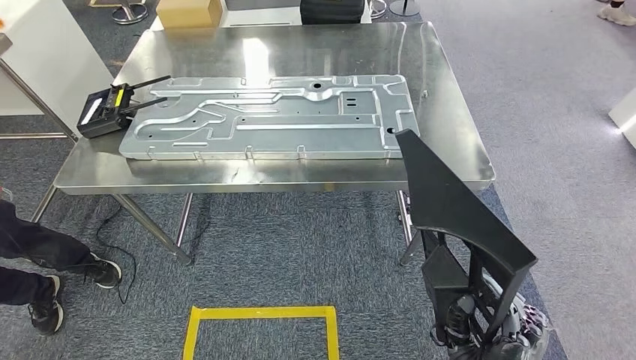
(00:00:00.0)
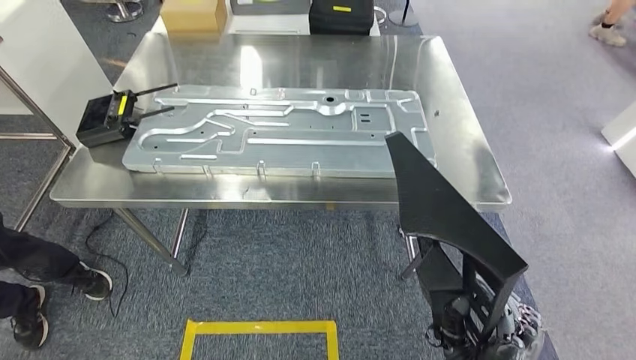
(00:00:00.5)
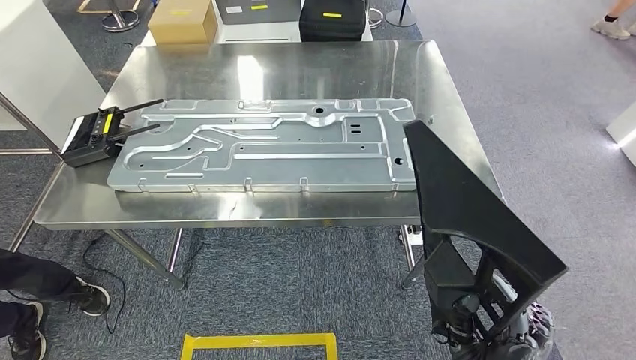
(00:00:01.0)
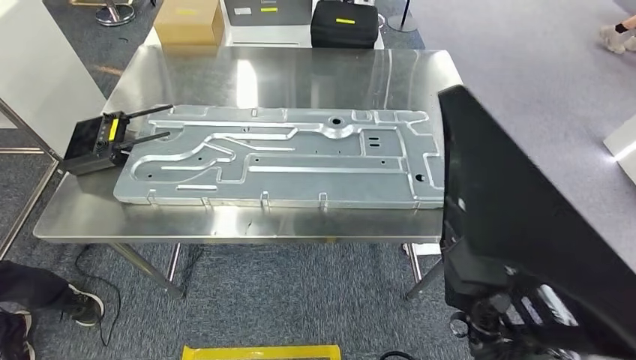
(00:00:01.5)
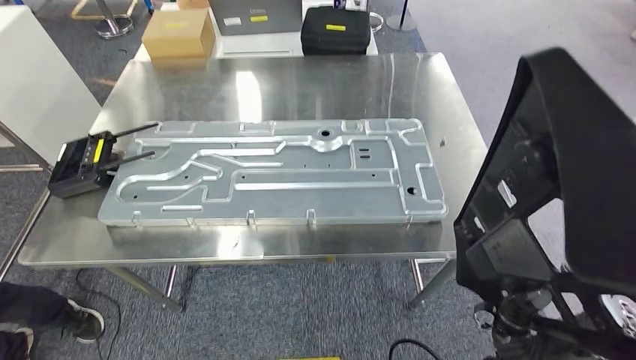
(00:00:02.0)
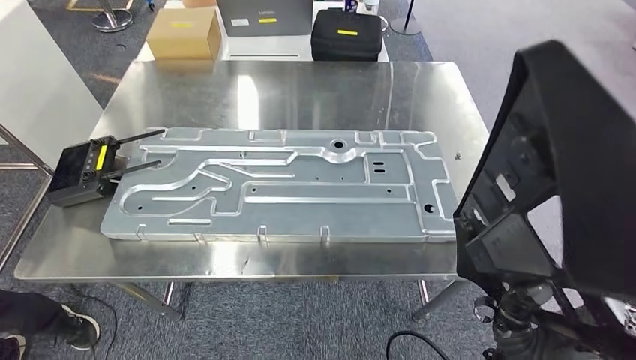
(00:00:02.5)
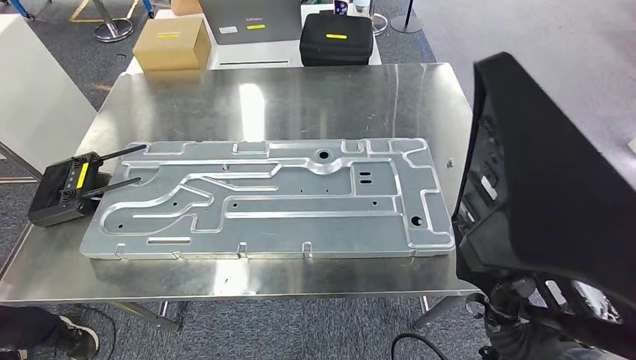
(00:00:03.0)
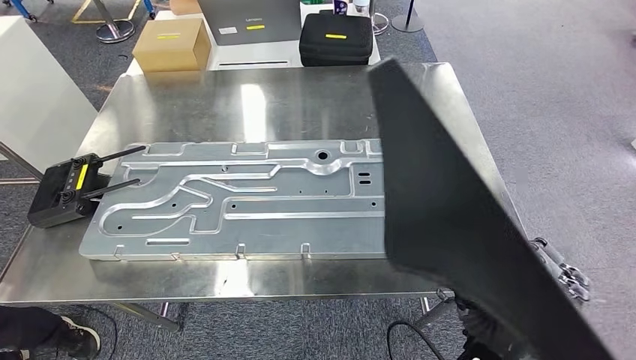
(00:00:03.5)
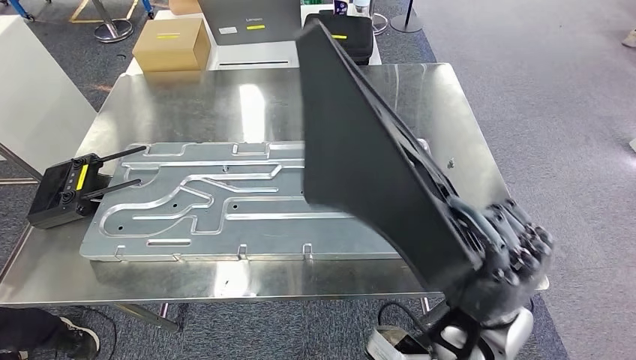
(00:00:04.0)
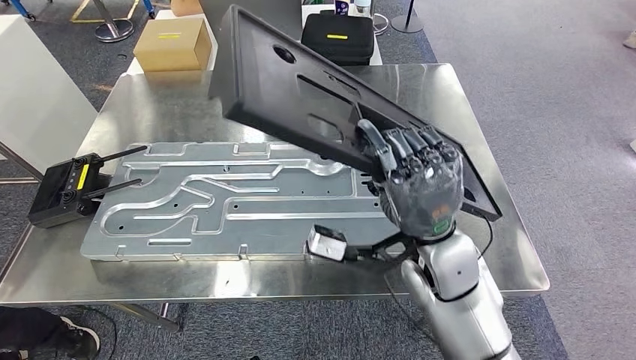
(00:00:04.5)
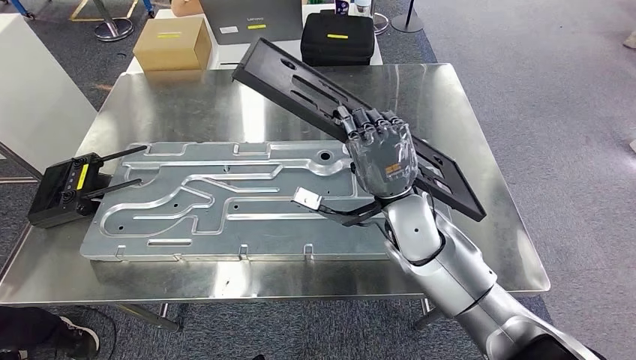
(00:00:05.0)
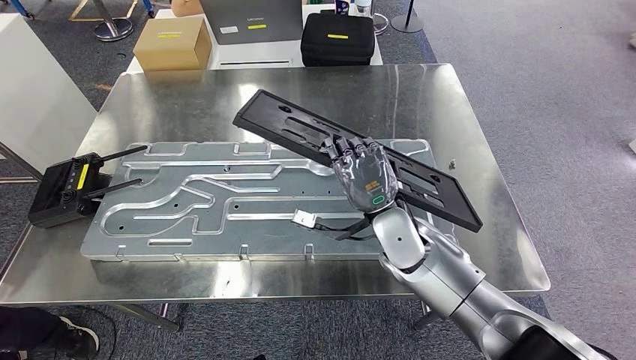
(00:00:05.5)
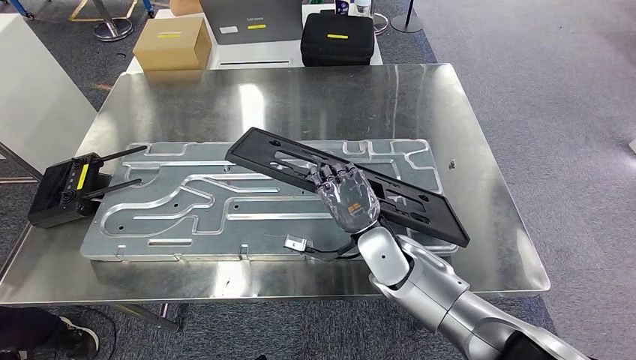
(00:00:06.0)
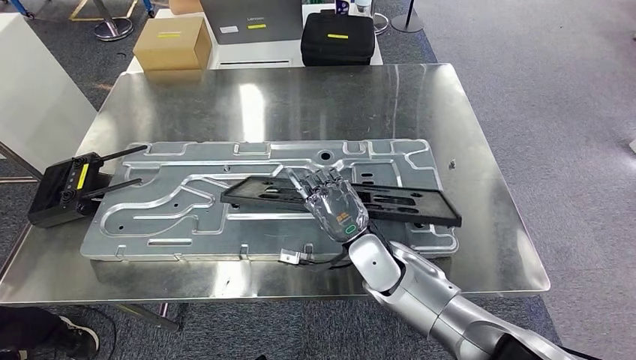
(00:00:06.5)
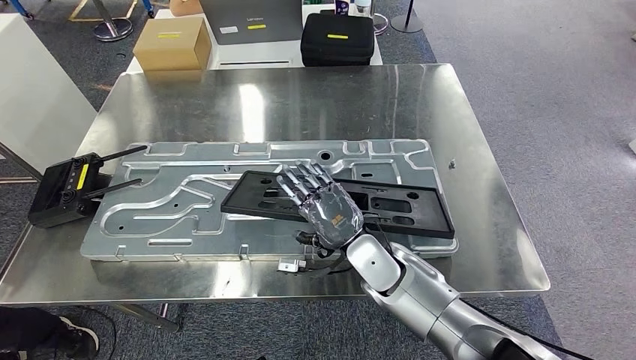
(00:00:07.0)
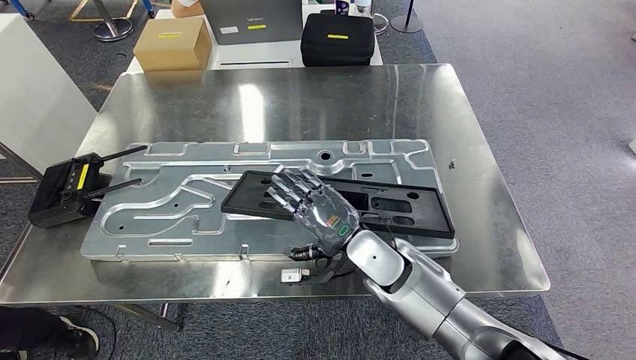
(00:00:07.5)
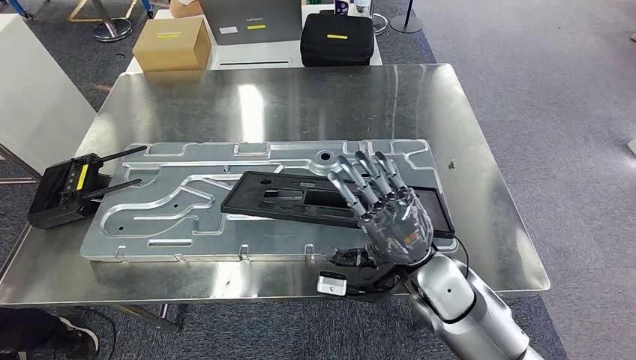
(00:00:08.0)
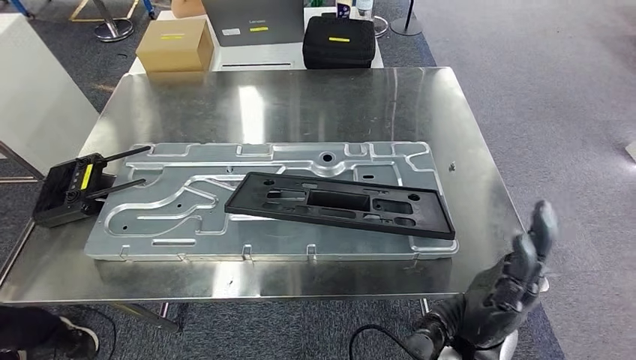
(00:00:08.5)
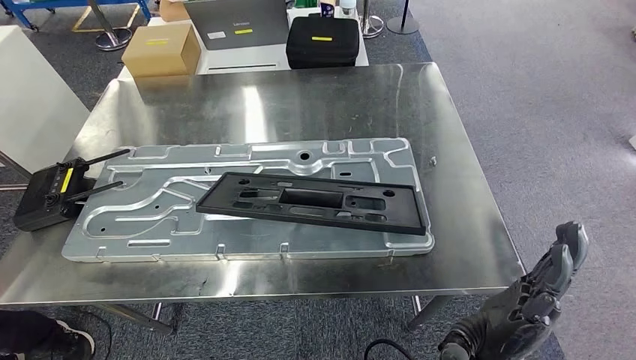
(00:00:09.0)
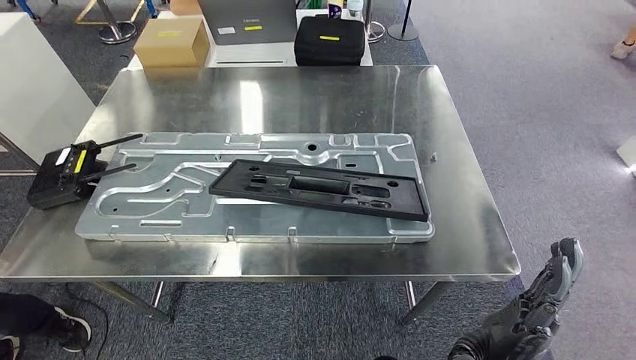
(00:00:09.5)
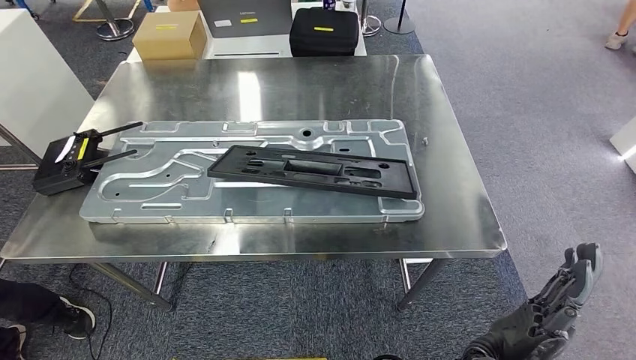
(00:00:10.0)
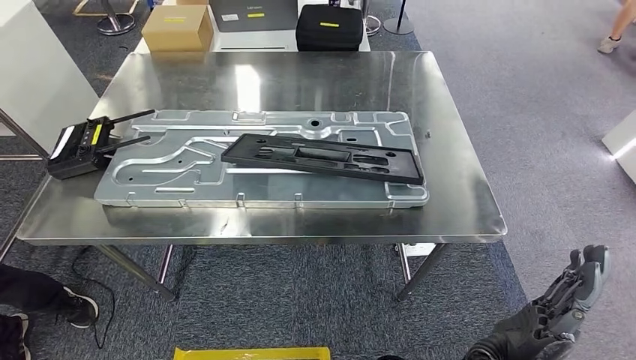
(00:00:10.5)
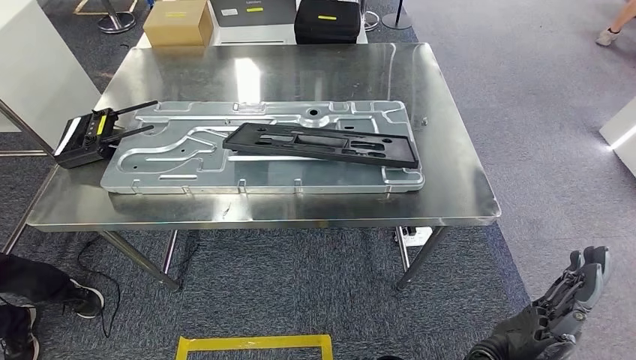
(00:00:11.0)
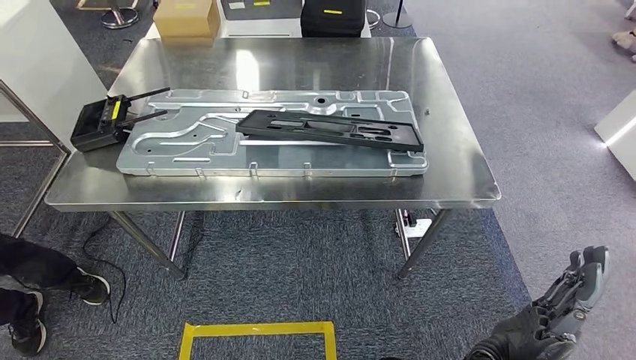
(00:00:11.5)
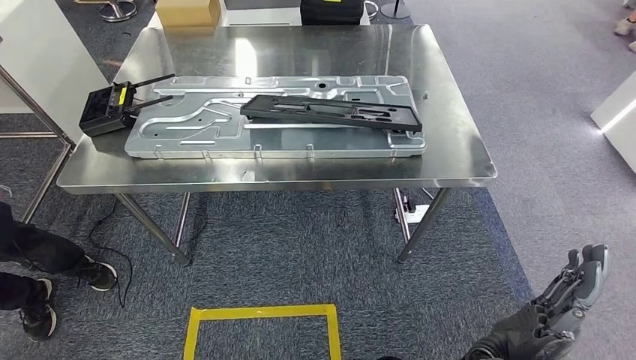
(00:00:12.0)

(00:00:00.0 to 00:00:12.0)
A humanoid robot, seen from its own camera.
Step, 00:00:02.5 - 00:00:09.5: Insert the large parts into the corresponding slots on the workbench.
00:00:06.0 - 00:00:08.0: The right hand travels to the right and backward by about 10 cm.

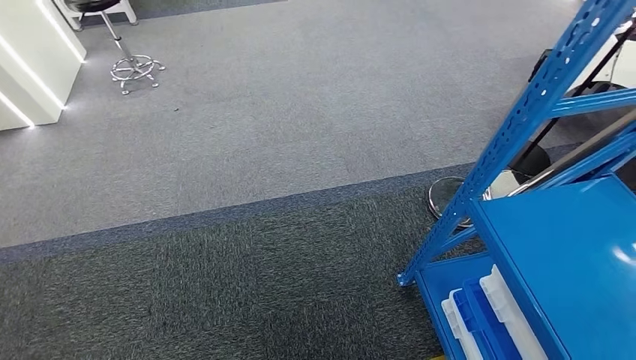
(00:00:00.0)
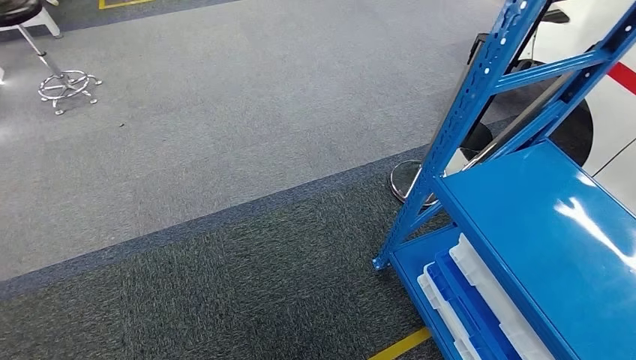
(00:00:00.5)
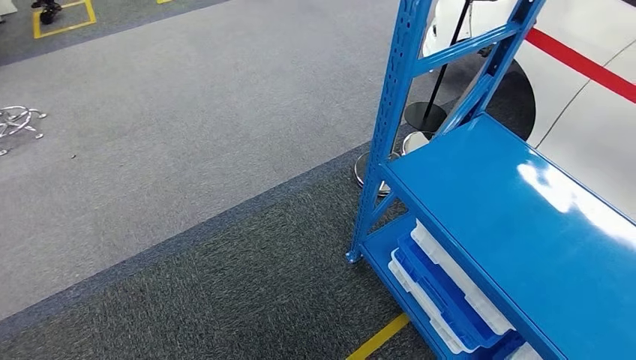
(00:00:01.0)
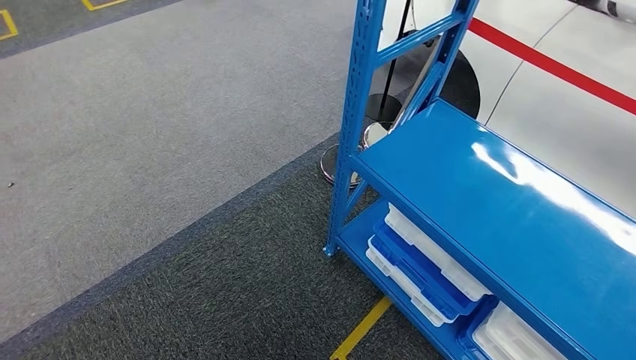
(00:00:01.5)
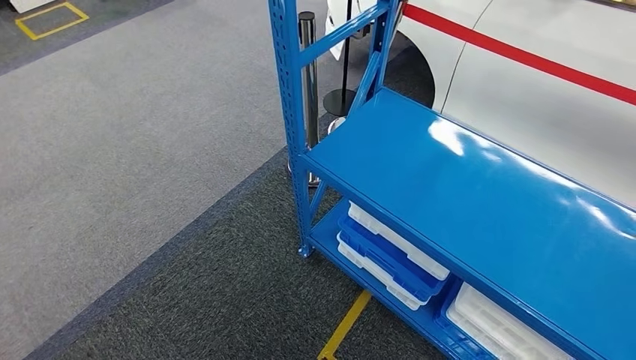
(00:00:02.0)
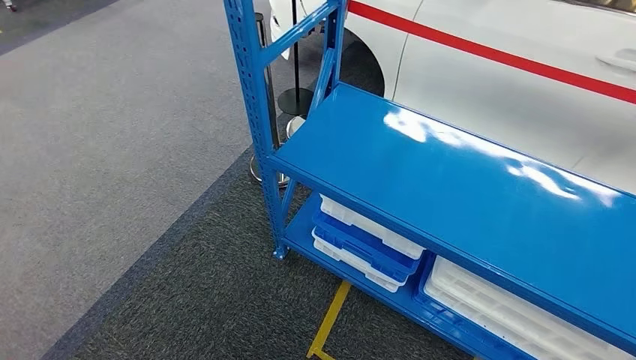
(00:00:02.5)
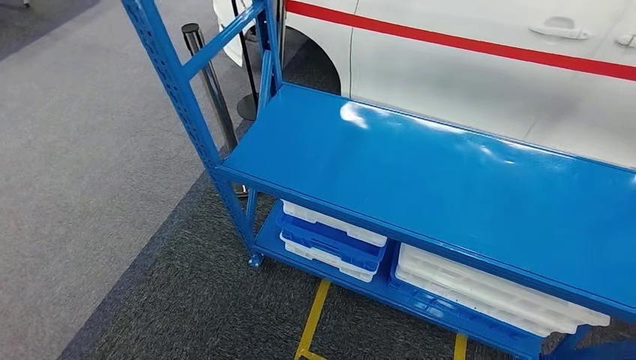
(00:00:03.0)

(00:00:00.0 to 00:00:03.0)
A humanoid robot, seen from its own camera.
Step, 00:00:00.0 - 00:00:03.0: Return to the initial position at the shelf.

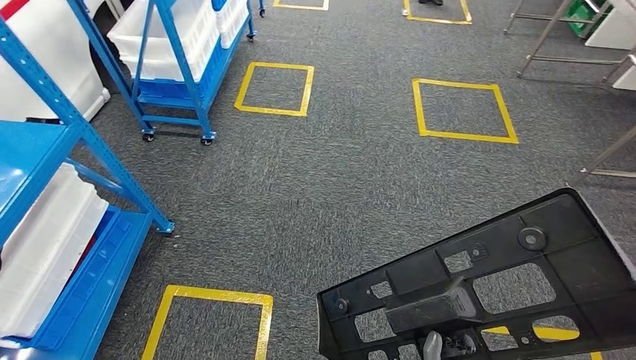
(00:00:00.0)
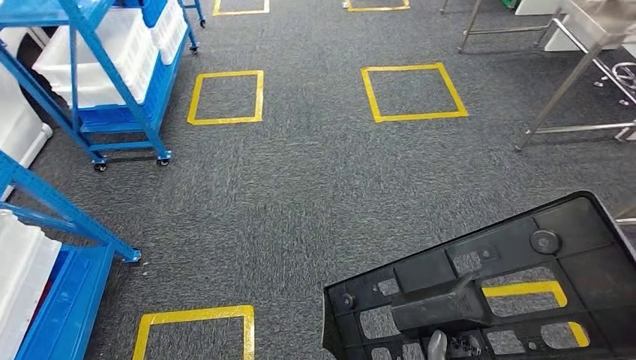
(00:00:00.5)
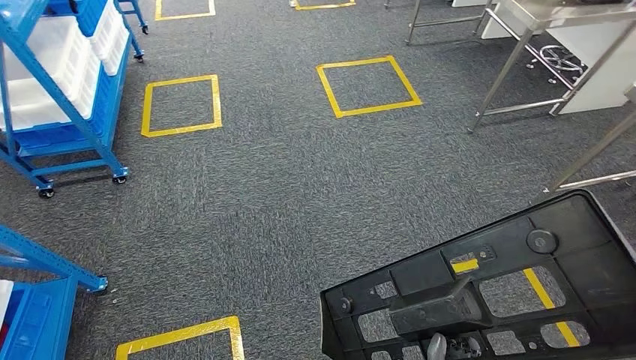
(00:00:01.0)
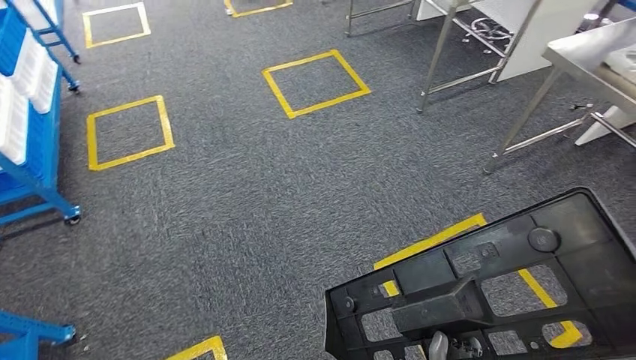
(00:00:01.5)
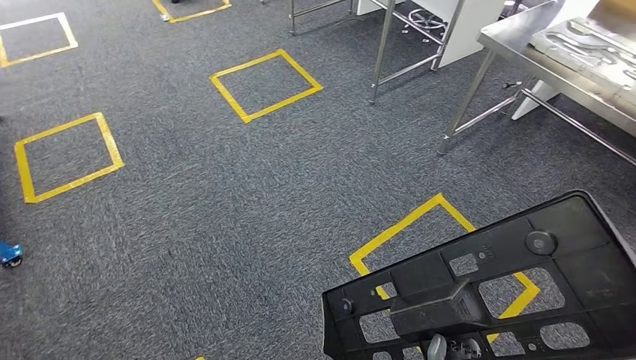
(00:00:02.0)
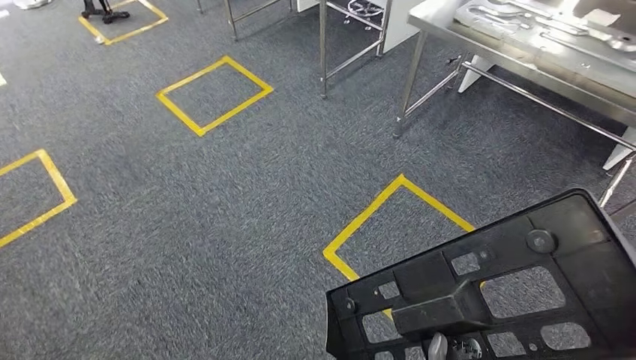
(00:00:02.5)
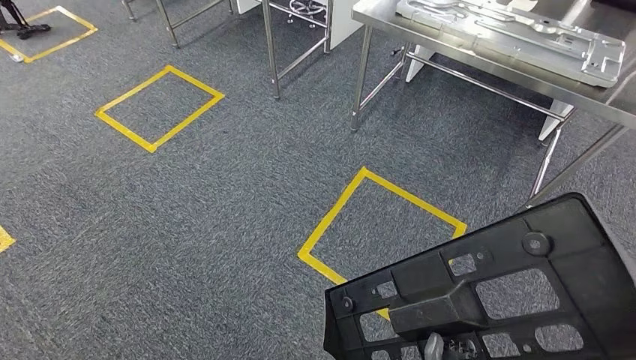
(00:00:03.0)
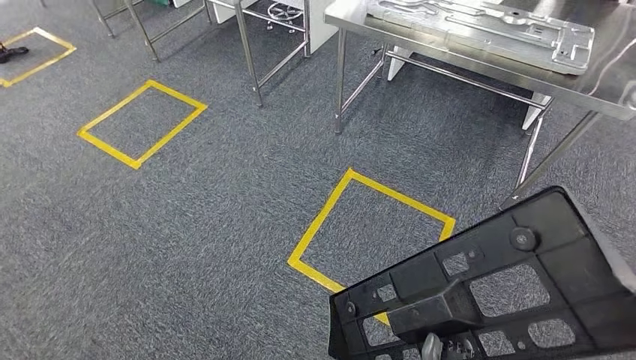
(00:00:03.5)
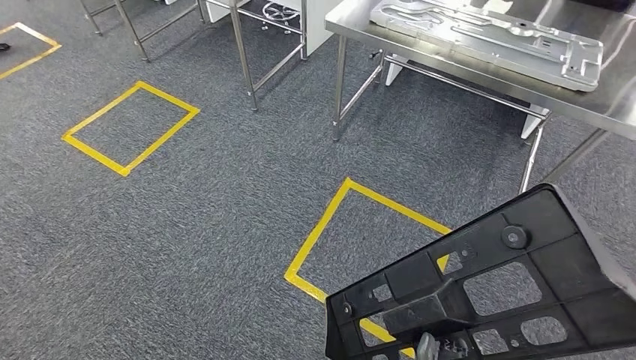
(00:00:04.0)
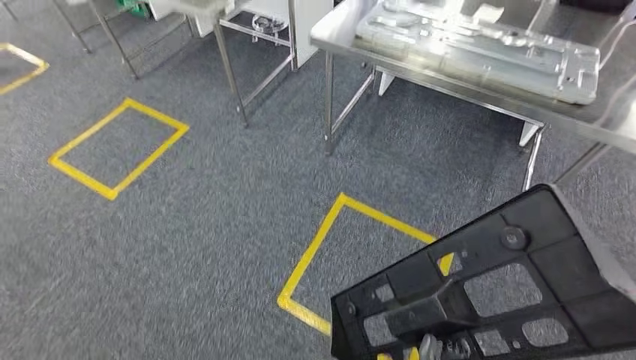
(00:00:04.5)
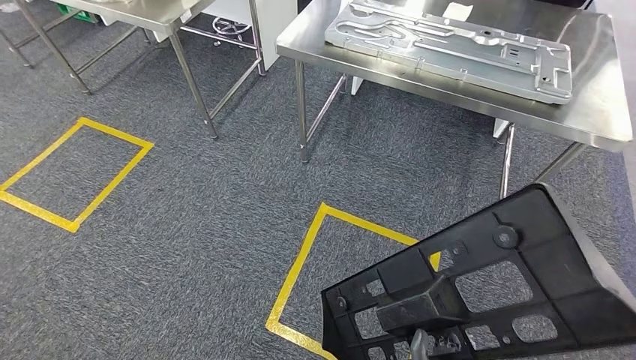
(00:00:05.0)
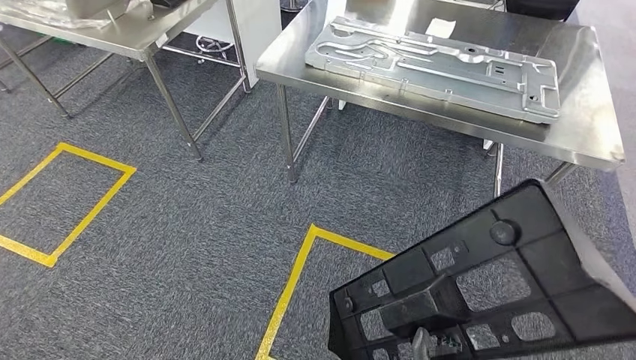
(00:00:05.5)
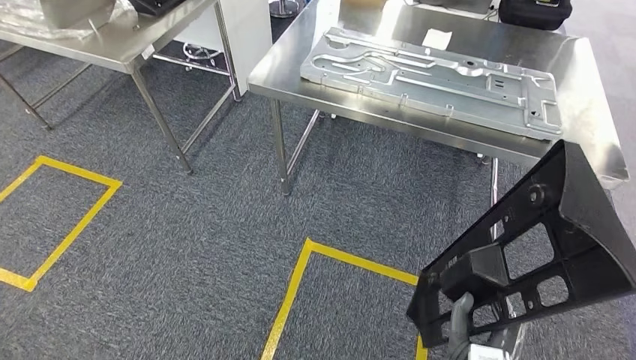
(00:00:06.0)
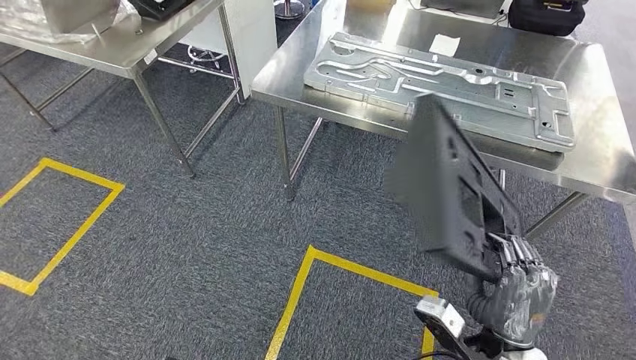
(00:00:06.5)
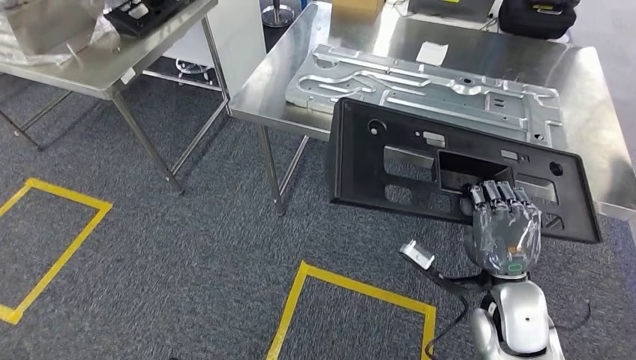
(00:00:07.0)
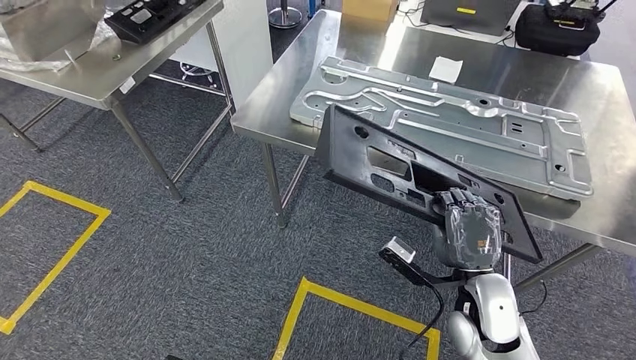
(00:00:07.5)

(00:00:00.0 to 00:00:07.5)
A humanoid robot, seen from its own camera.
Step, 00:00:00.0 - 00:00:07.0: Move the large parts to the workbench.
